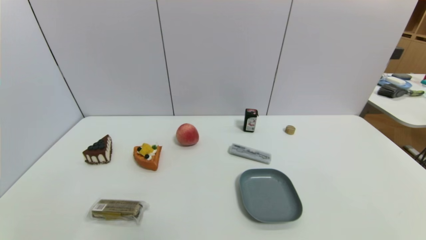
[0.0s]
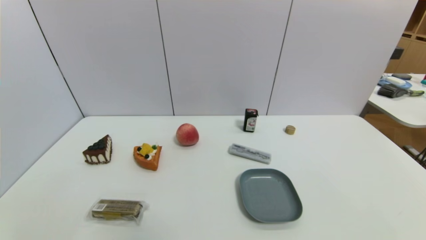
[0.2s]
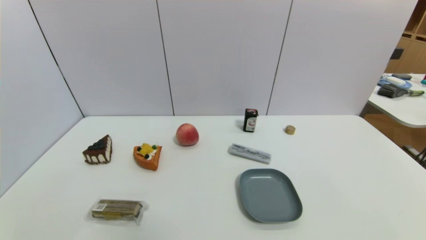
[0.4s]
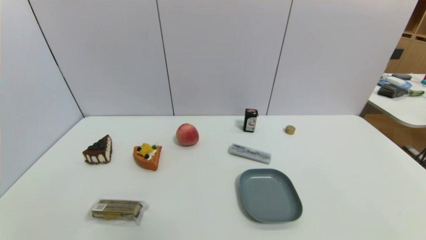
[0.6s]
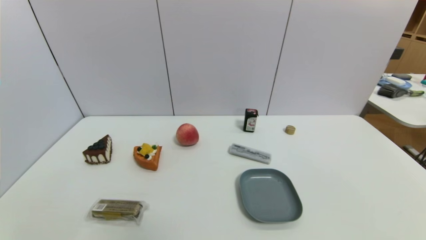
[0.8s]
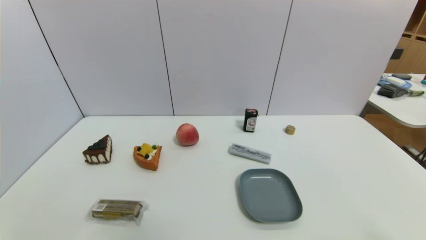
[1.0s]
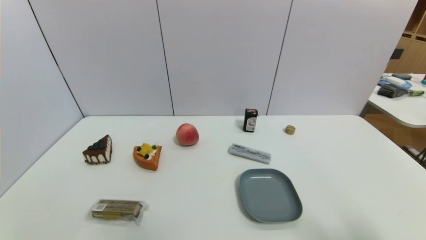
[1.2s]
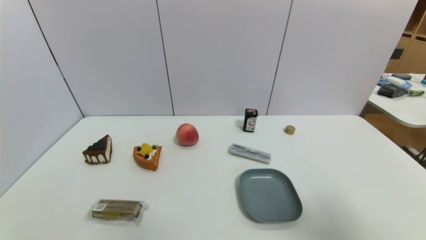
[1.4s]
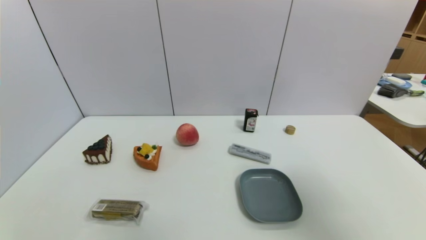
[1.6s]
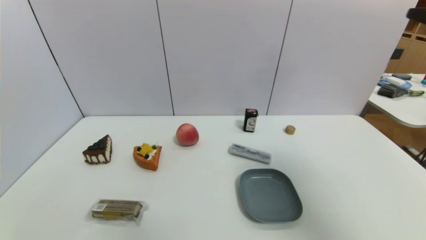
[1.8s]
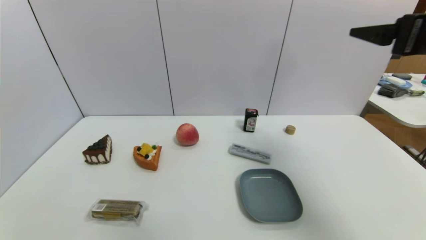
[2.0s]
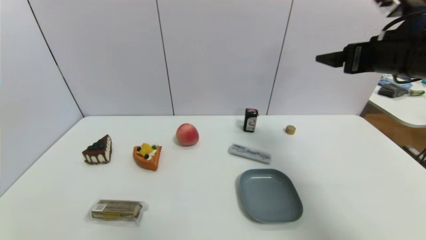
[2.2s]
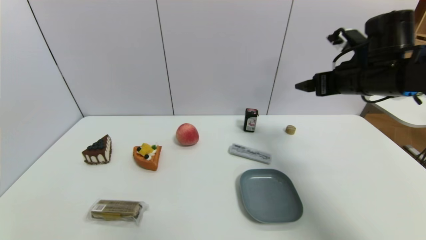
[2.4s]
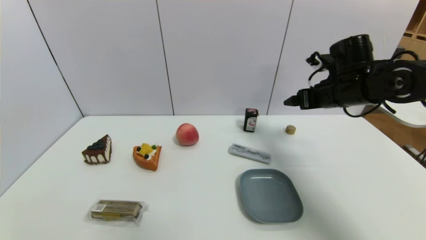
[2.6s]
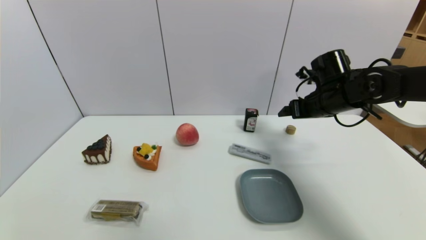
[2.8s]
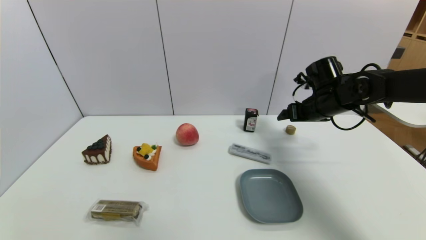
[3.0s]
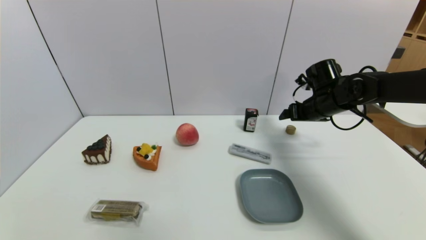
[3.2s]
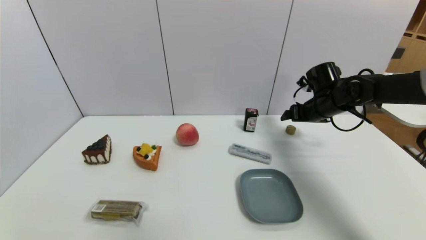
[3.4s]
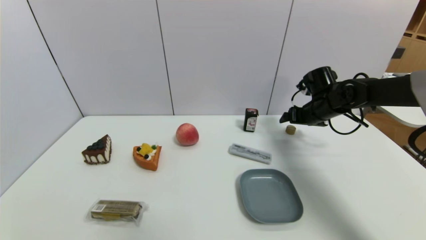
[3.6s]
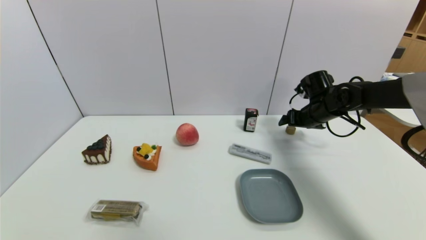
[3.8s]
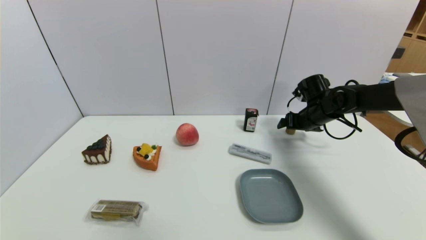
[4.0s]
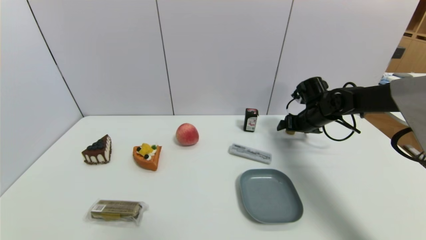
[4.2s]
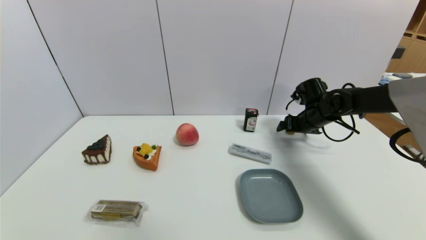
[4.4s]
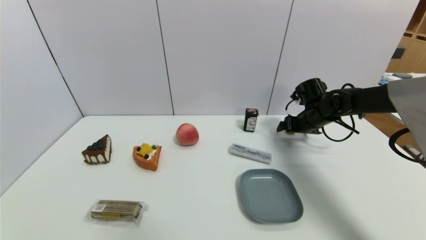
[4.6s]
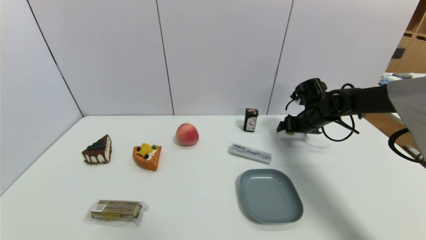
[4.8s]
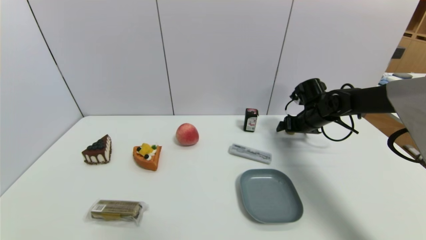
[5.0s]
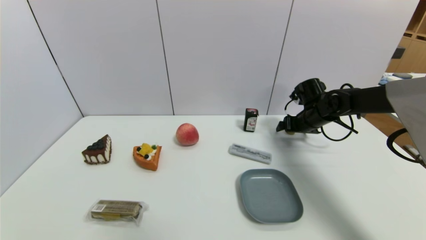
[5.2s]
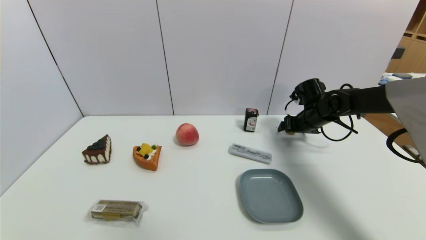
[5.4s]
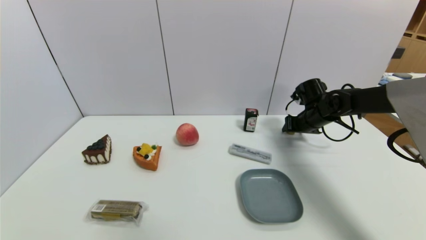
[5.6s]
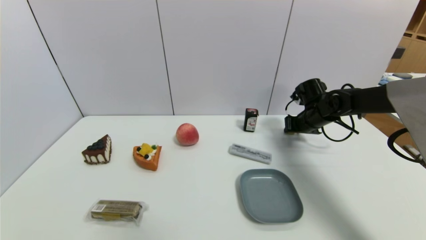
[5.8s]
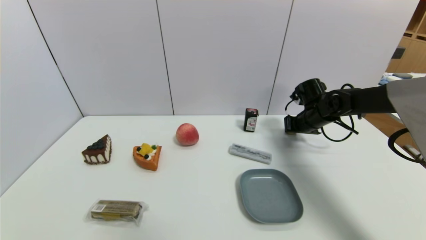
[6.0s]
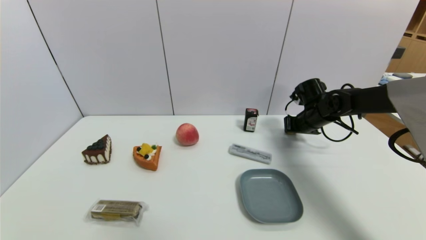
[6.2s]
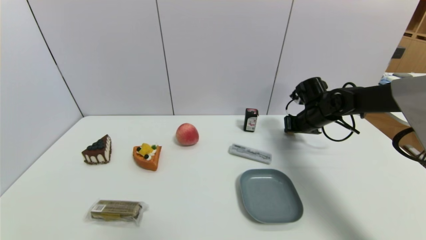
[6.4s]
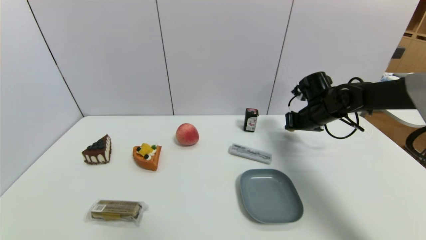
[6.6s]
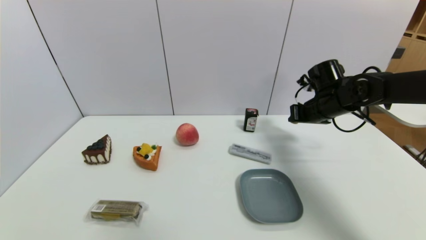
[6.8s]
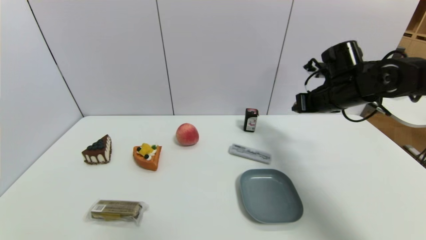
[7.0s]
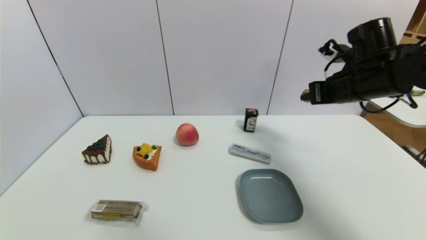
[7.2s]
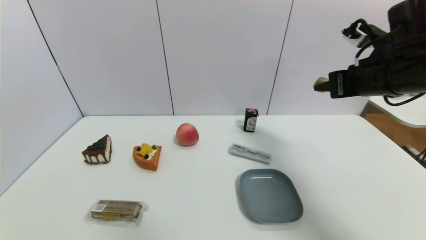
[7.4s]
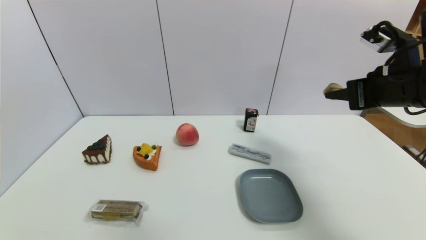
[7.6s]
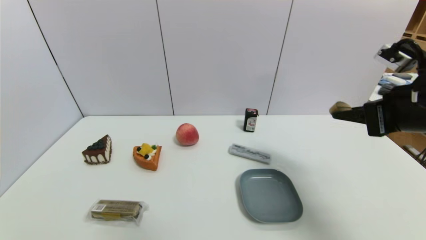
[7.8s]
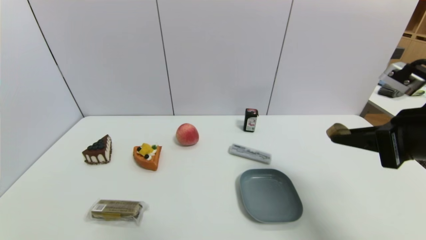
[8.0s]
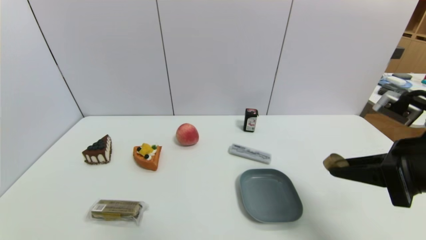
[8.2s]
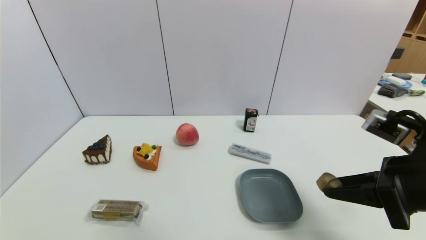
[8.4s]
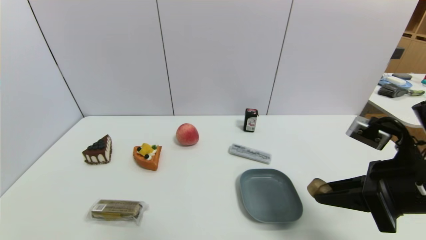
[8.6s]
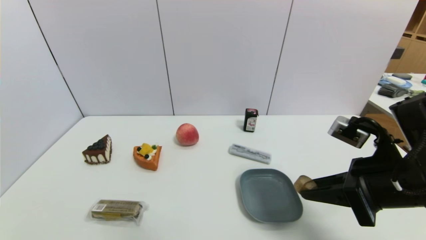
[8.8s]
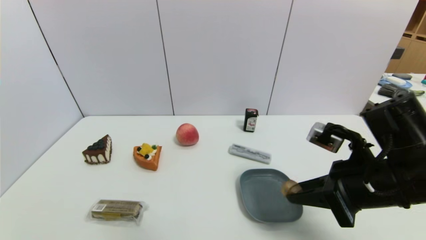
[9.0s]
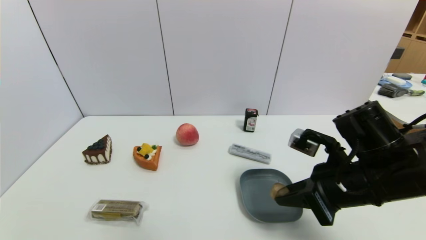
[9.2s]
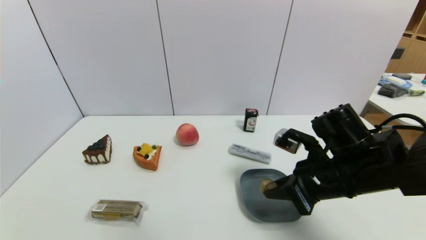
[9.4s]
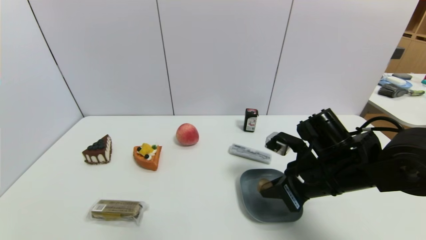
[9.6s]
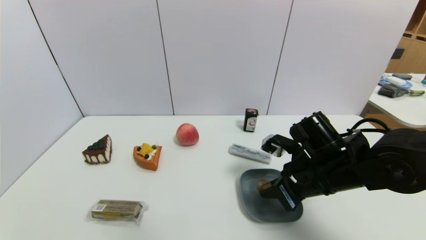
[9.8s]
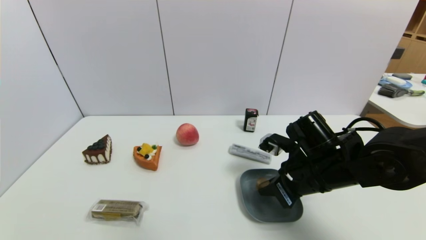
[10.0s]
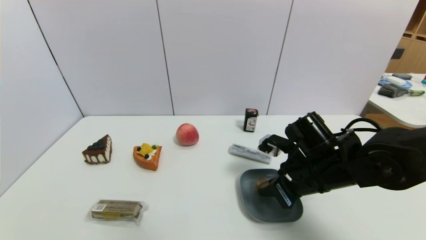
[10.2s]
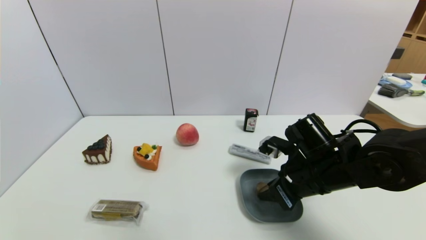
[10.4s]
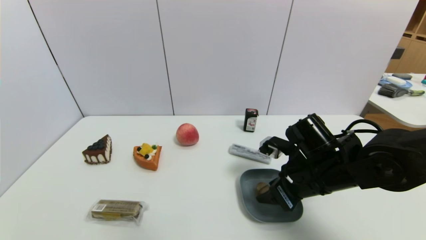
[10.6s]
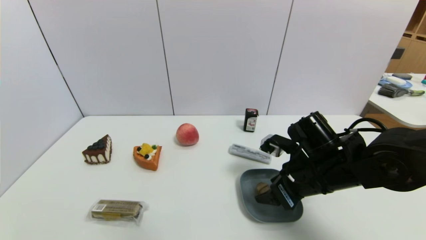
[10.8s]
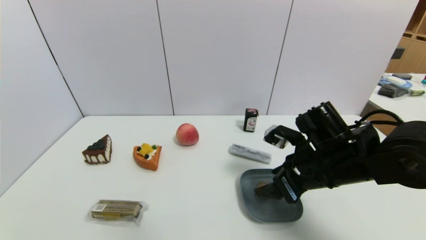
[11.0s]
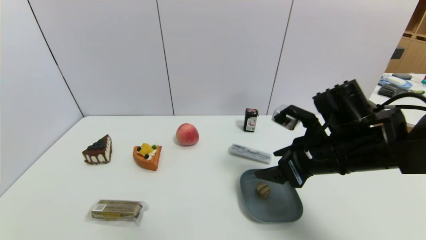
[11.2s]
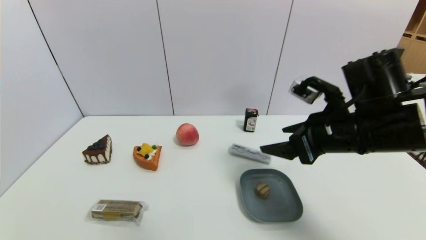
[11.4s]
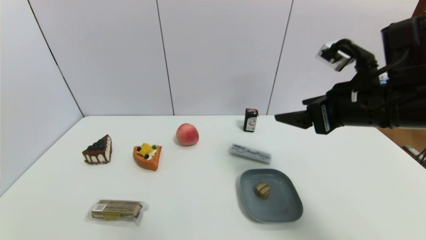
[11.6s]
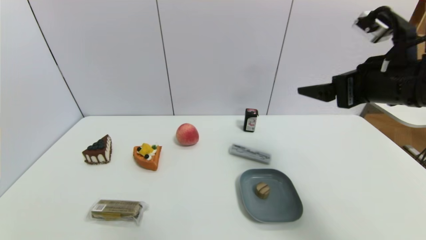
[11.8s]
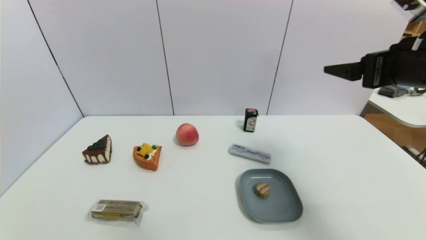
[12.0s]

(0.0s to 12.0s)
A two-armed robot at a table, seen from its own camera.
Task of the whole recording: use a gripper to pick the target object and place on the dish.
Step, 0.0s - 6.2s: Grasp the round wooden block with the right gripper.
Step, 6.4s - 11.0s: Place the round wooden block on the dish with the right gripper.
0.0s - 1.6s: The right gripper goes roughly 30 cm upward and forward.
1.6s - 3.0s: The right gripper goes about 35 cm forward and downward.
3.0s - 4.4s: The right gripper goes some 5 cm downward.
4.4s - 6.0s: The right gripper closes up.
6.0s - 7.6s: The right gripper travels backward and upward by roughly 25 cm.
7.6s - 9.0s: The right gripper travels downward, backward and to the left by about 15 cm.
9.0s - 10.4s: The right gripper heads forward and downward, covering about 10 cm.
10.4s - 12.0s: The right gripper heads upward and to the right, covering some 20 cm, and opens.

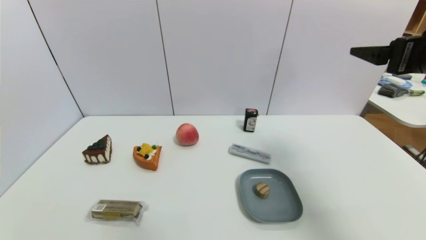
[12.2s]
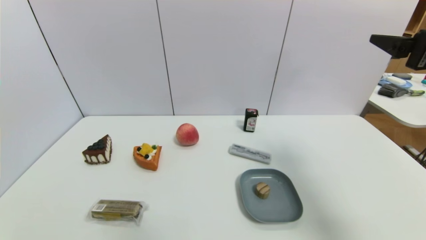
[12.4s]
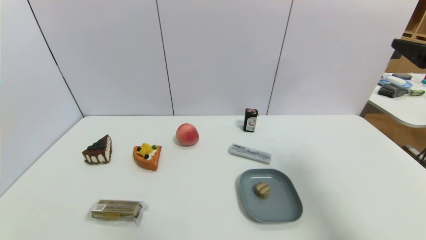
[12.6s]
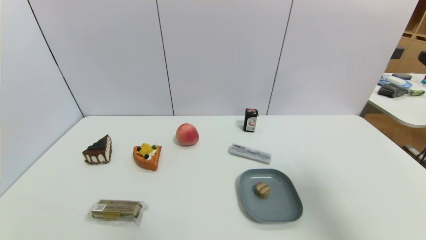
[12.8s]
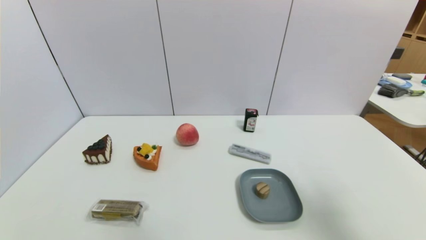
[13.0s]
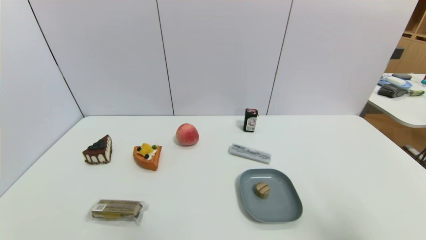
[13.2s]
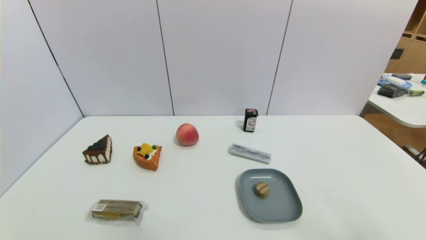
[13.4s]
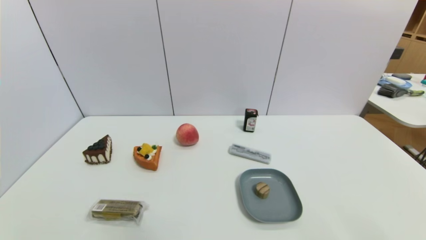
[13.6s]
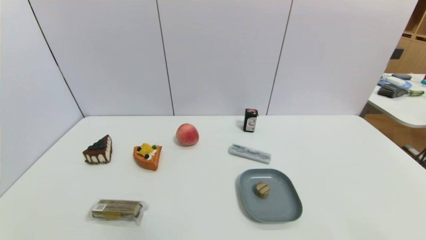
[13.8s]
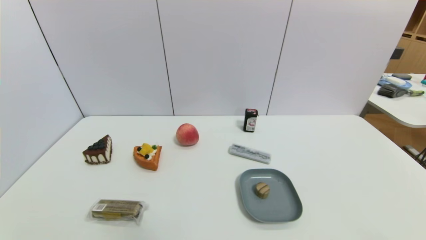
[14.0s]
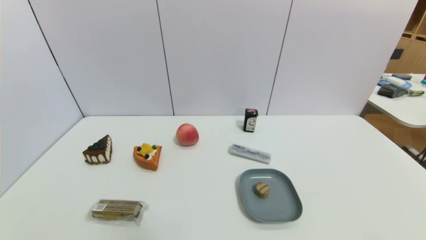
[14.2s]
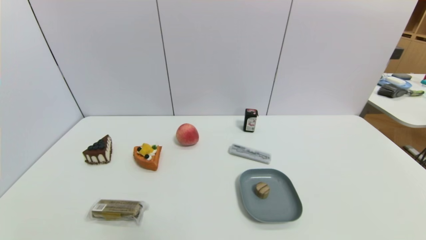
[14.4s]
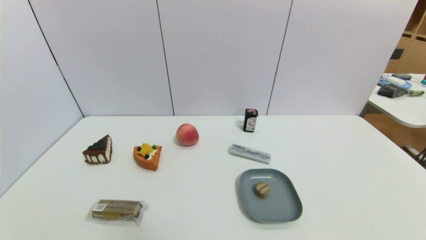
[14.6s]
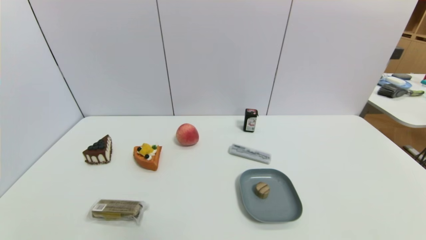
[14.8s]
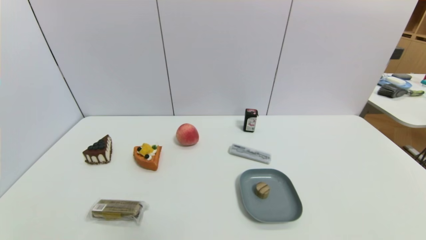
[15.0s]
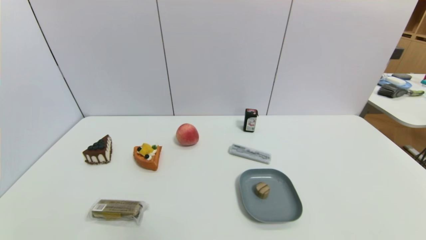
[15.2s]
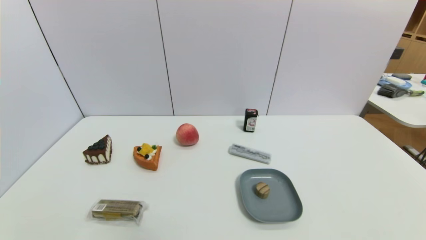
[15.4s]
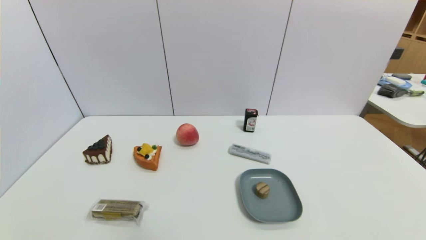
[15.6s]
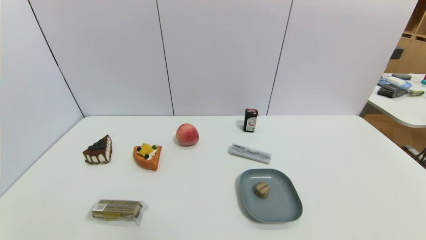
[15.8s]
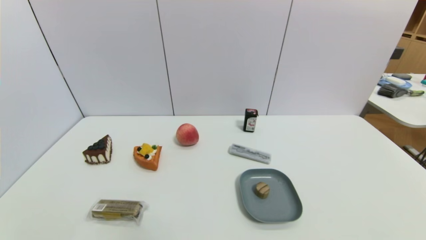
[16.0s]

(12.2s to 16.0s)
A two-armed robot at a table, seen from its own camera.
Task of the whole recording: use a gripper to pick the target object and place on the dish.
12.2s - 13.4s: The right gripper is displaced backward and downward by about 20 cm.
14.8s - 16.0s: Both grippers stay about where they are.
